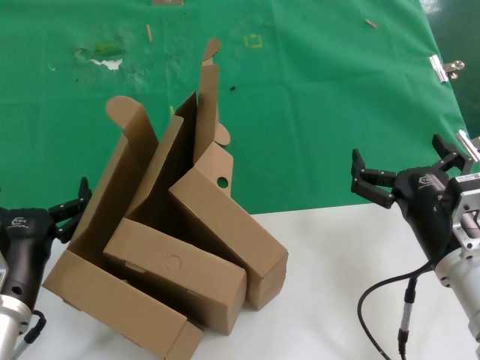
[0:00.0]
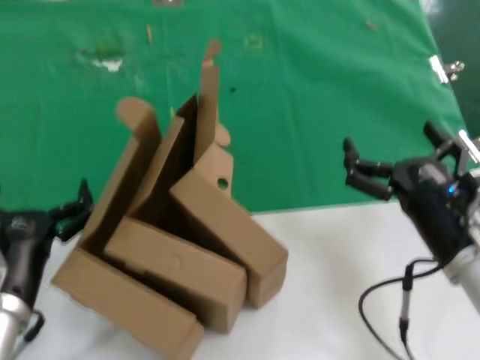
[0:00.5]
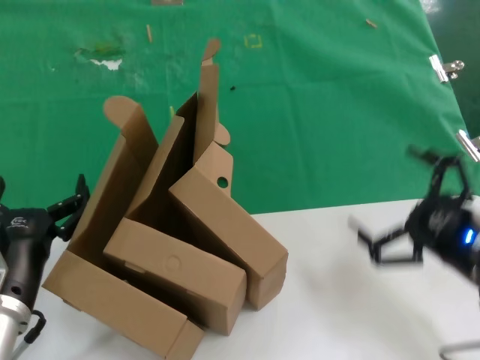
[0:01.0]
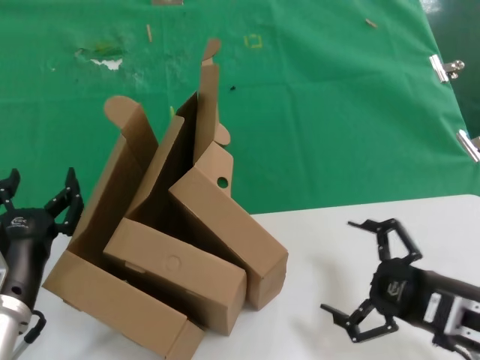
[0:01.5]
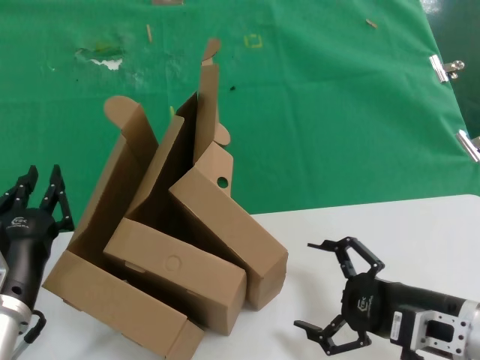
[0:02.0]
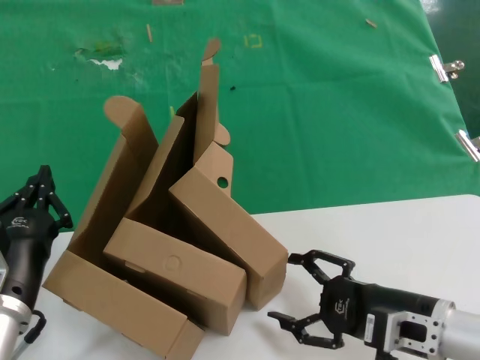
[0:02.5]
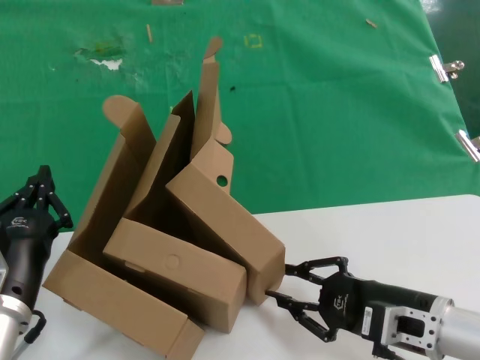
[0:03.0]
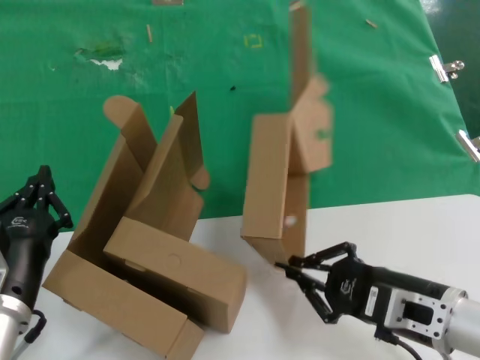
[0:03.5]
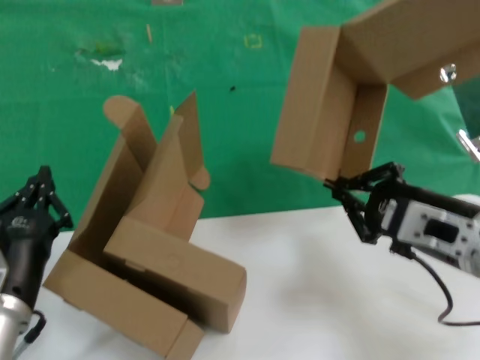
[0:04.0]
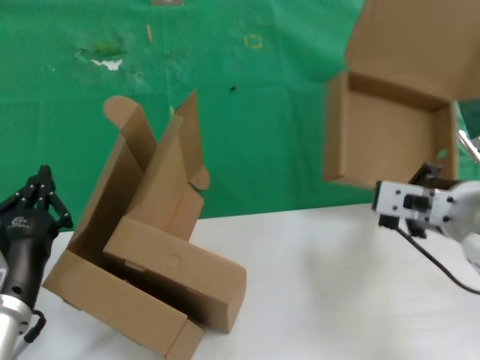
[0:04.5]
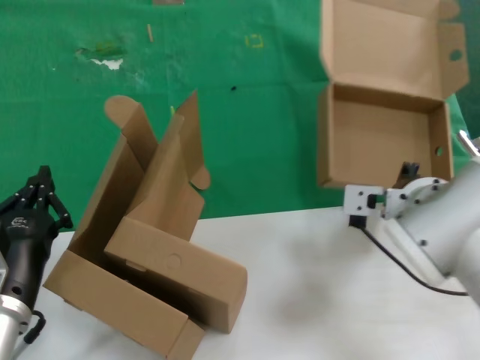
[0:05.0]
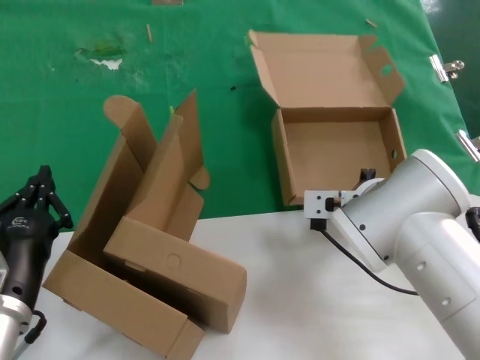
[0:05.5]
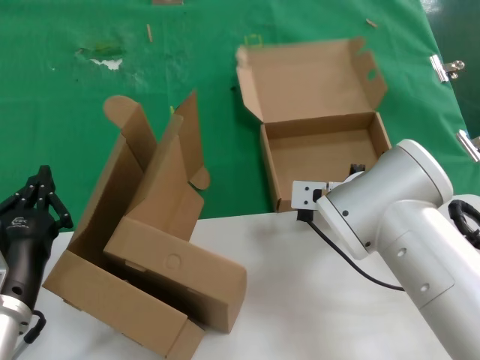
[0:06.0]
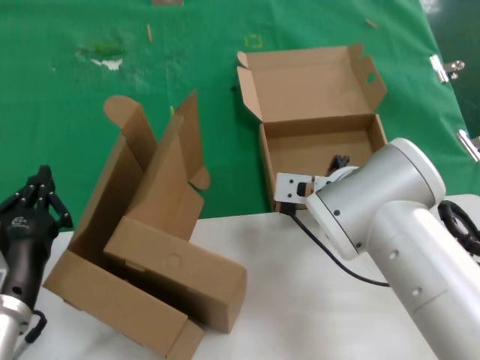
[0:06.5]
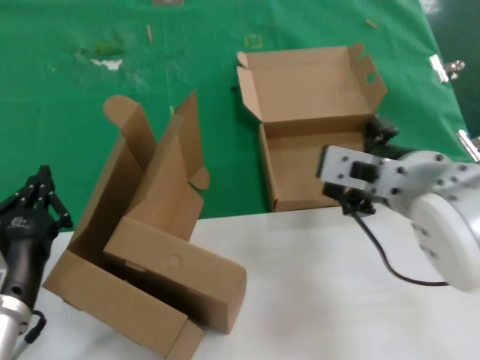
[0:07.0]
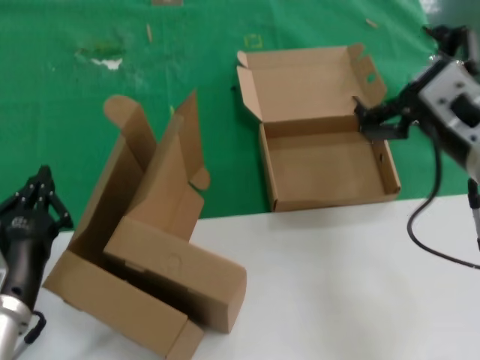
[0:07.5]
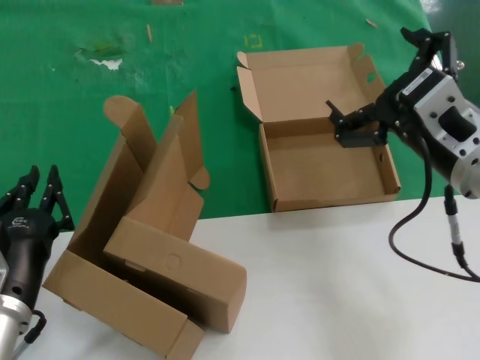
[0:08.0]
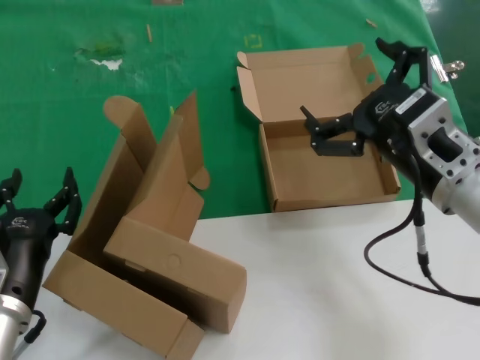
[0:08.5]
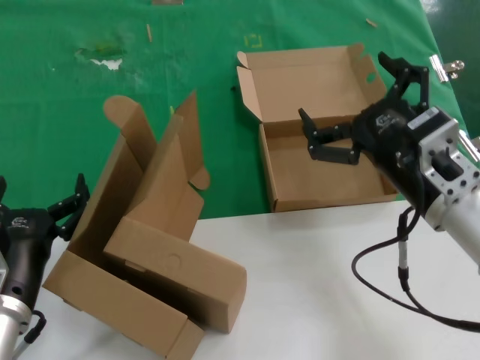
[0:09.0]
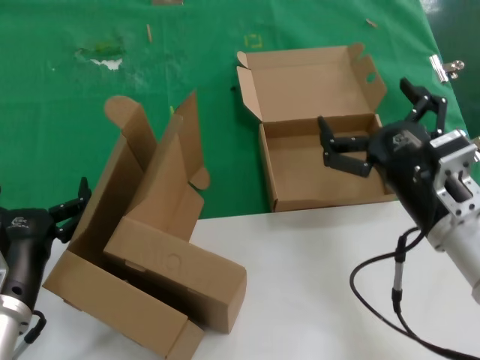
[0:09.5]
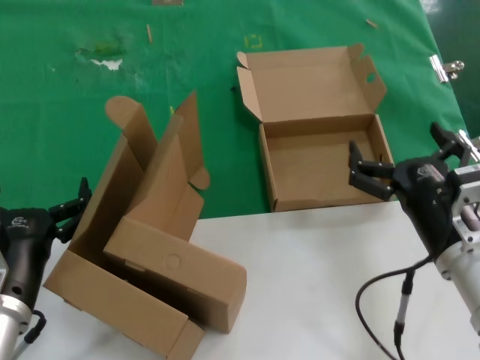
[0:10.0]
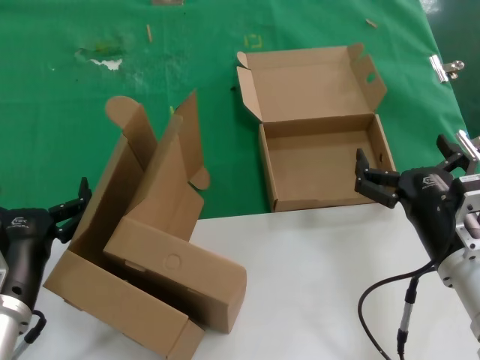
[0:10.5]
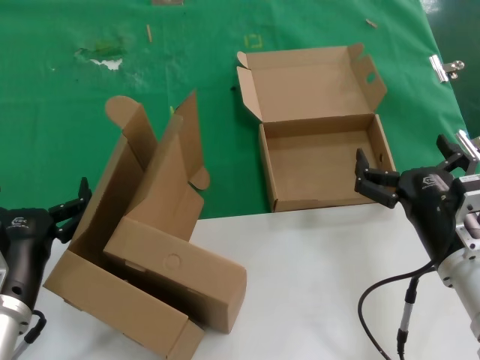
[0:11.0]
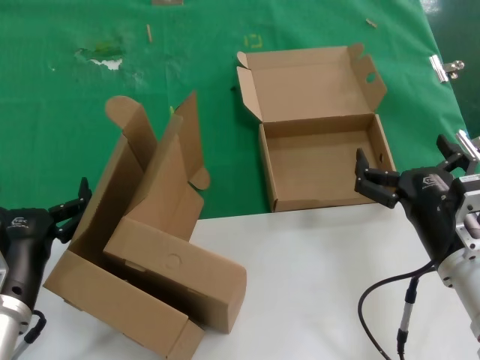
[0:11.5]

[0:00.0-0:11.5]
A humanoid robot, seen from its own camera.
Task of the whole recording: pick up the paper box and put it at the back.
Step, 0:00.0 to 0:03.5: Grasp the paper box.
Step, 0:04.0 to 0:06.5: Place the paper box on the table.
0:02.0 to 0:04.0: The right hand is displaced upward by about 10 cm.
0:04.0 to 0:06.0: The right hand is displaced forward and to the left by about 20 cm.
0:06.0 to 0:07.5: The right hand shifts approximately 20 cm backward, upward and to the right.
0:07.5 to 0:09.5: The right hand is displaced downward by some 10 cm.
0:09.5 to 0:11.5: The right hand is displaced downward by roughly 5 cm.

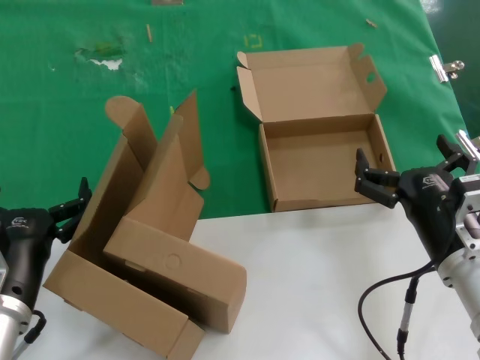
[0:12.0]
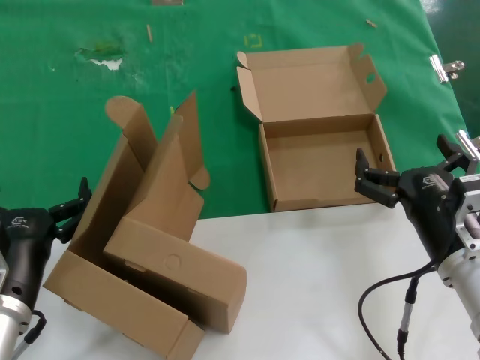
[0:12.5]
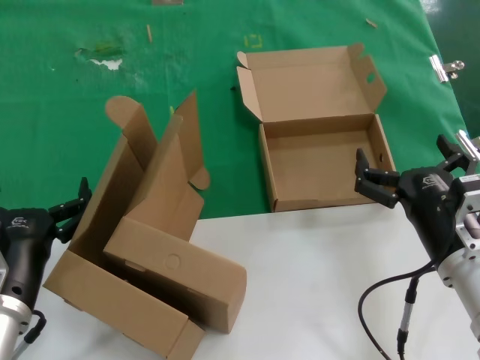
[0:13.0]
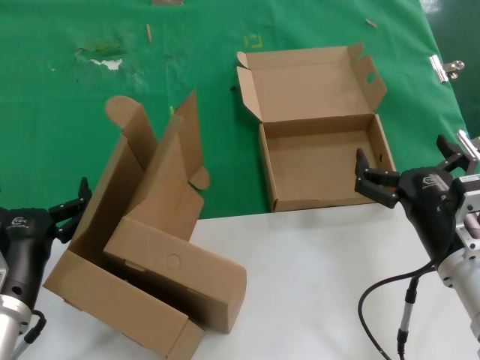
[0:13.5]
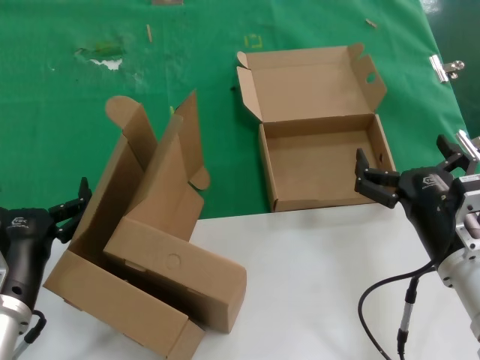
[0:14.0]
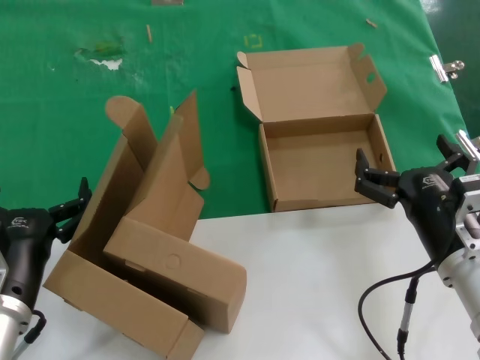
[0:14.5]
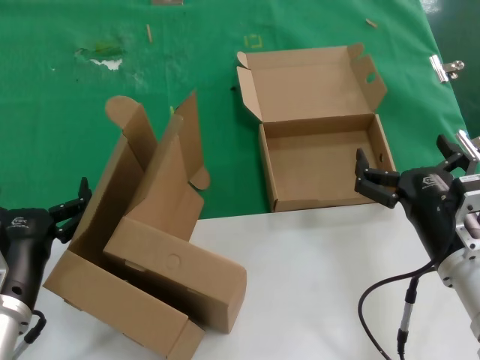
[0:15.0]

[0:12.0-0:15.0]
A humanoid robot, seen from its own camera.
Task of the whole recording: pick up the paper box and put it at the back.
0:12.0 to 0:15.0: Both hands stay about where they are.
